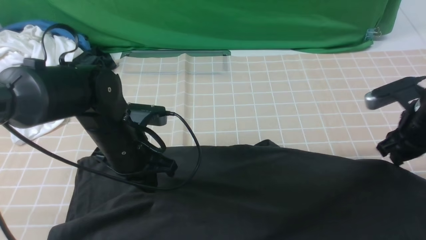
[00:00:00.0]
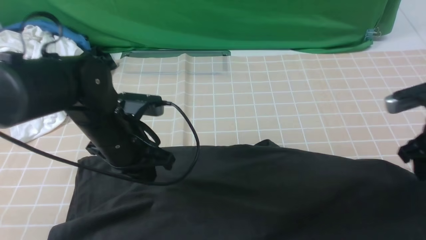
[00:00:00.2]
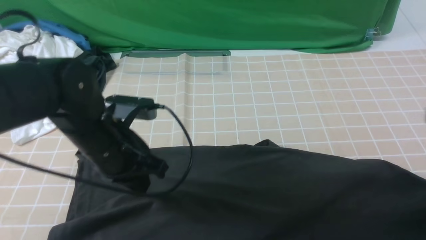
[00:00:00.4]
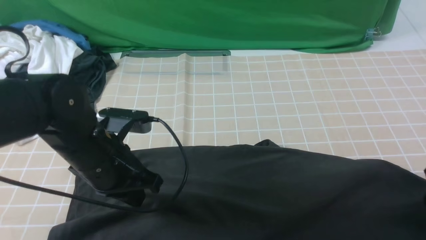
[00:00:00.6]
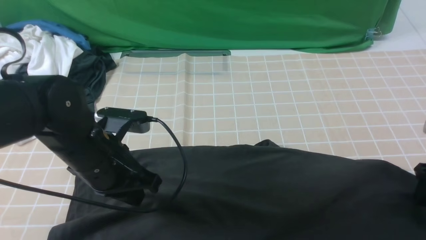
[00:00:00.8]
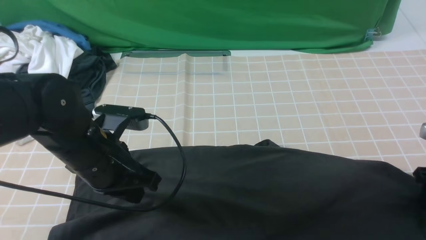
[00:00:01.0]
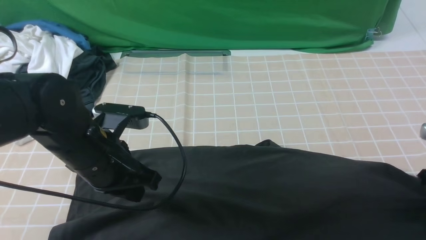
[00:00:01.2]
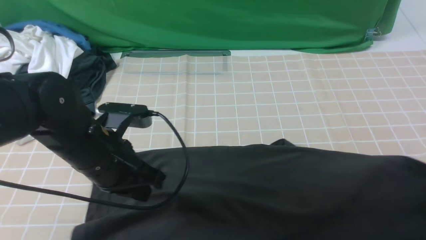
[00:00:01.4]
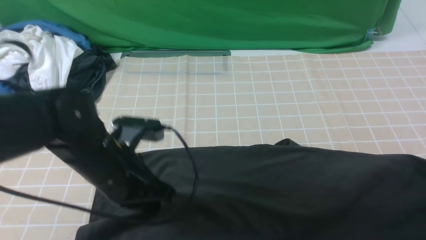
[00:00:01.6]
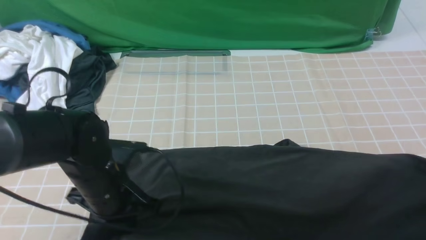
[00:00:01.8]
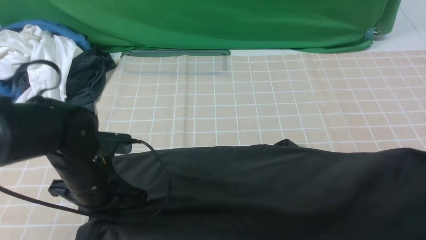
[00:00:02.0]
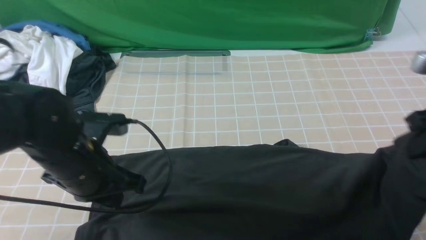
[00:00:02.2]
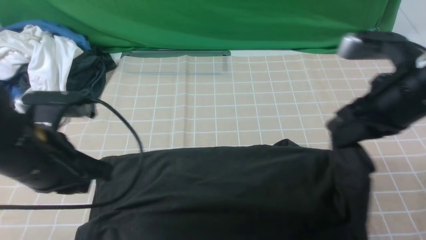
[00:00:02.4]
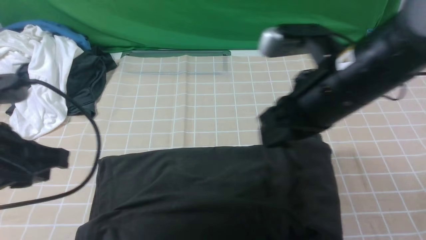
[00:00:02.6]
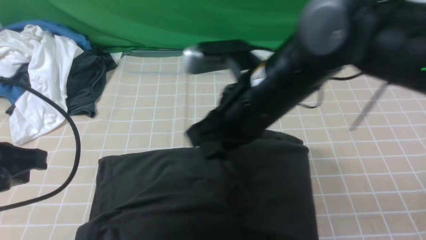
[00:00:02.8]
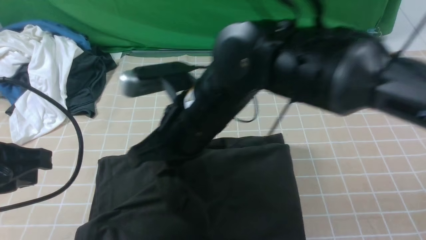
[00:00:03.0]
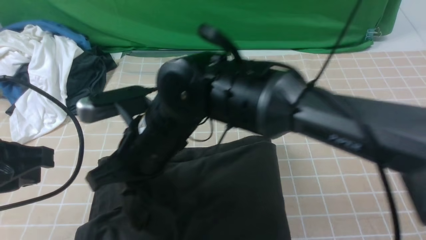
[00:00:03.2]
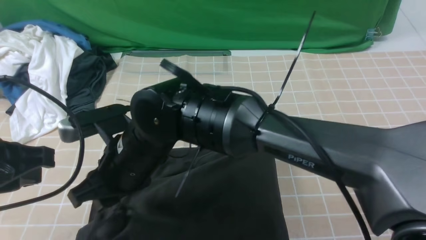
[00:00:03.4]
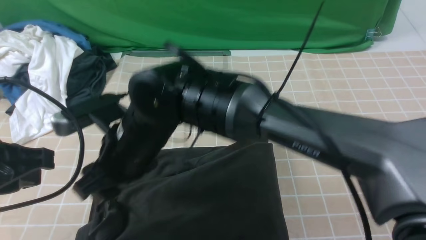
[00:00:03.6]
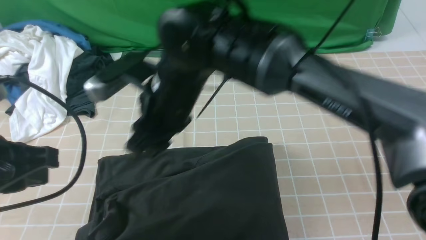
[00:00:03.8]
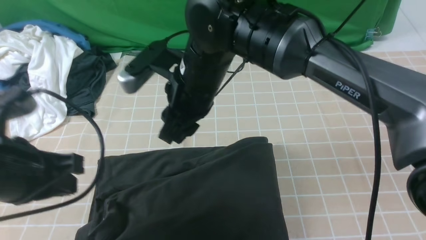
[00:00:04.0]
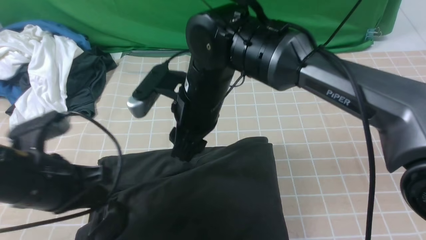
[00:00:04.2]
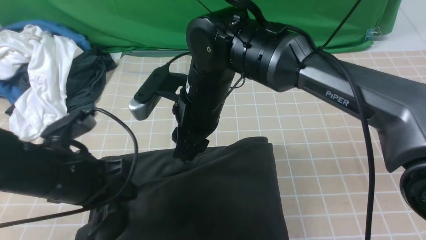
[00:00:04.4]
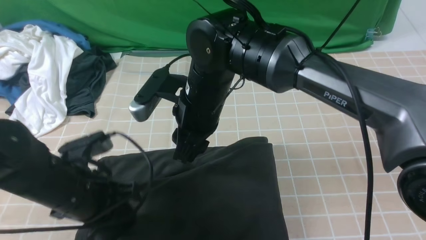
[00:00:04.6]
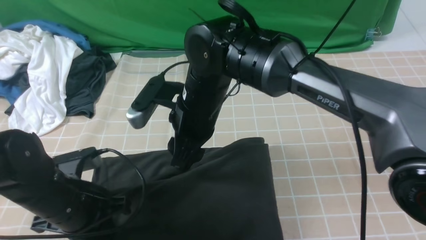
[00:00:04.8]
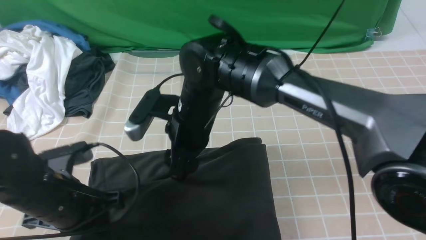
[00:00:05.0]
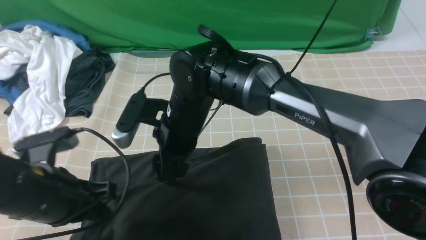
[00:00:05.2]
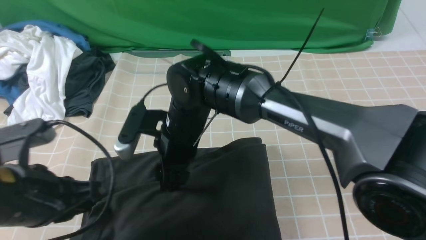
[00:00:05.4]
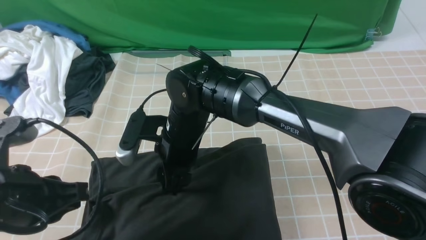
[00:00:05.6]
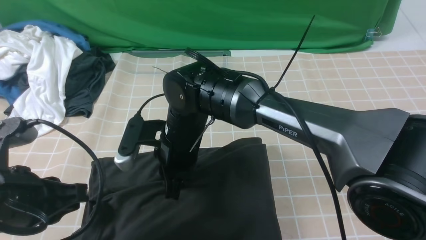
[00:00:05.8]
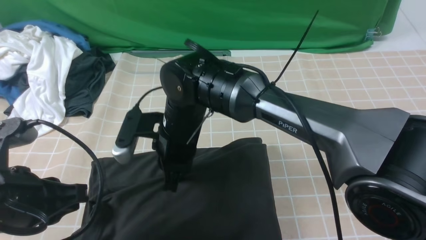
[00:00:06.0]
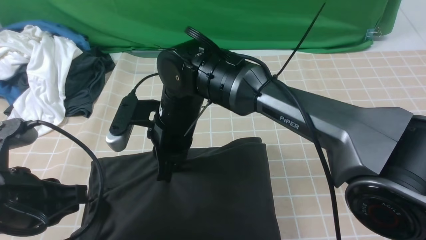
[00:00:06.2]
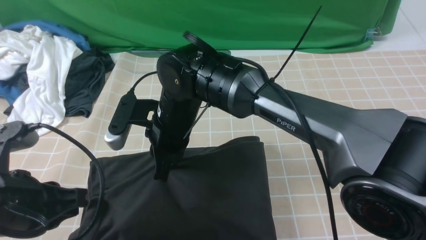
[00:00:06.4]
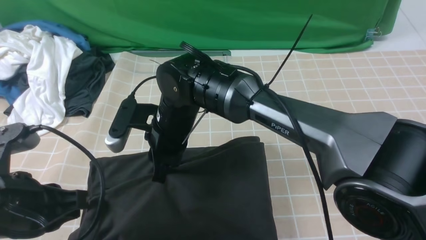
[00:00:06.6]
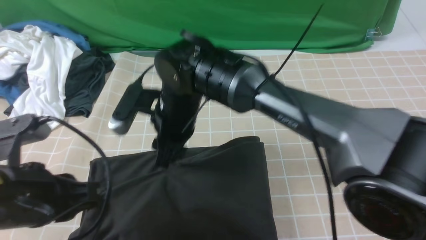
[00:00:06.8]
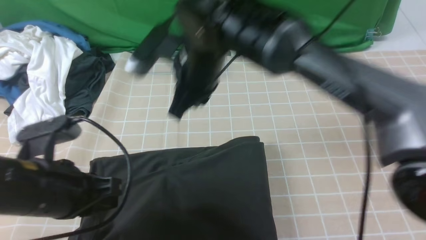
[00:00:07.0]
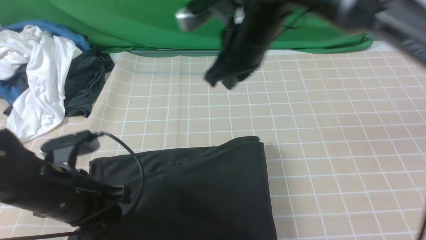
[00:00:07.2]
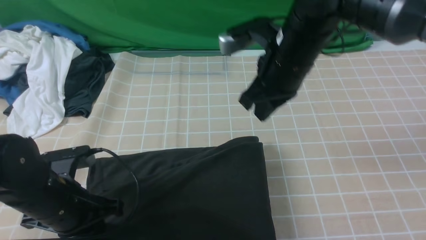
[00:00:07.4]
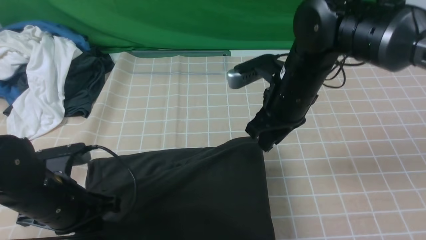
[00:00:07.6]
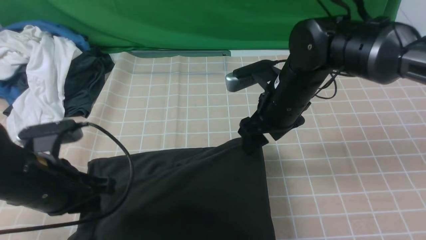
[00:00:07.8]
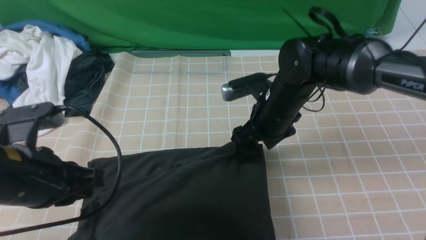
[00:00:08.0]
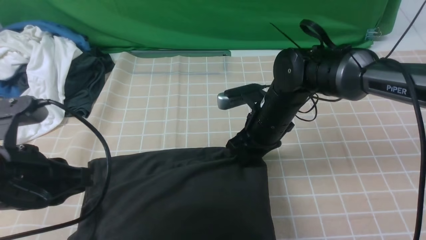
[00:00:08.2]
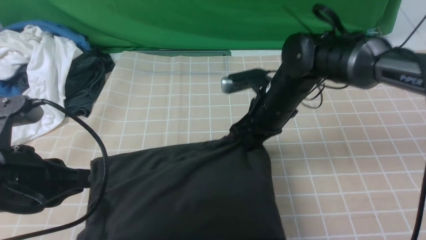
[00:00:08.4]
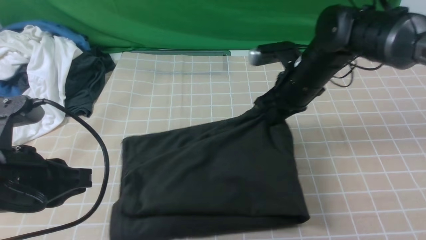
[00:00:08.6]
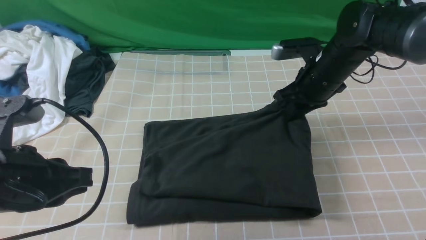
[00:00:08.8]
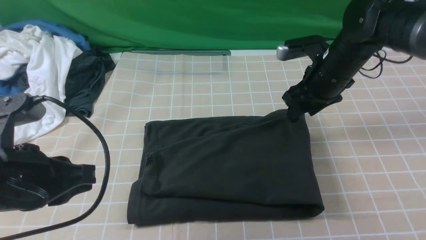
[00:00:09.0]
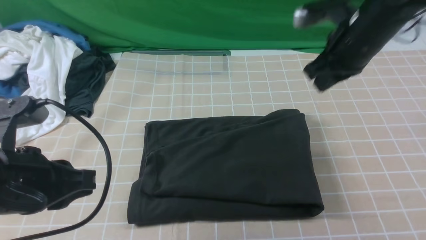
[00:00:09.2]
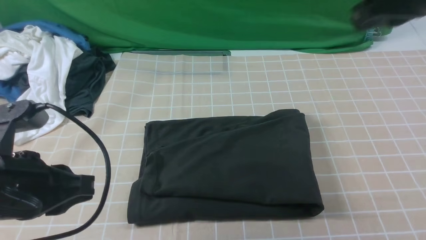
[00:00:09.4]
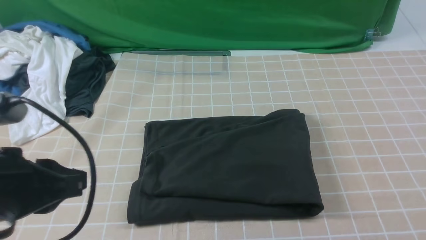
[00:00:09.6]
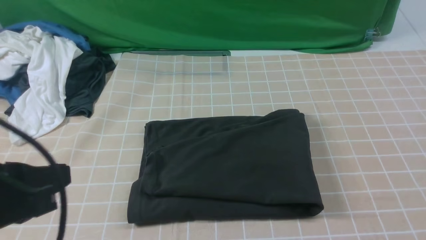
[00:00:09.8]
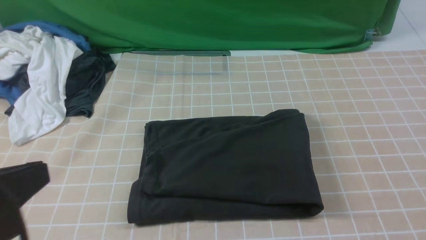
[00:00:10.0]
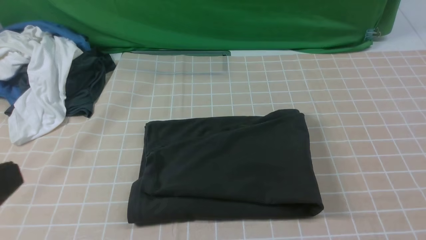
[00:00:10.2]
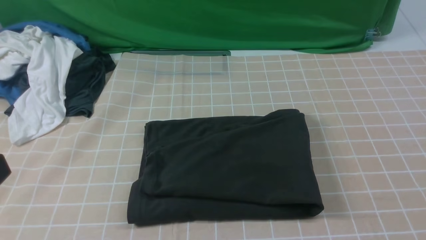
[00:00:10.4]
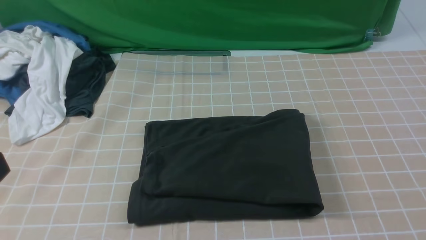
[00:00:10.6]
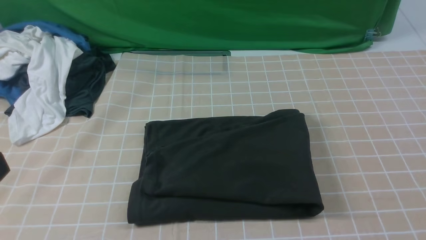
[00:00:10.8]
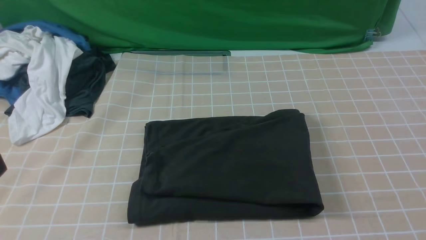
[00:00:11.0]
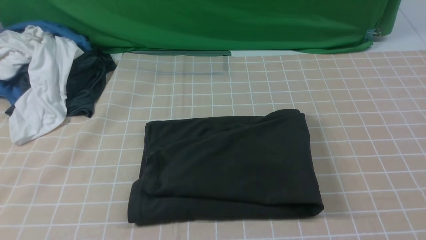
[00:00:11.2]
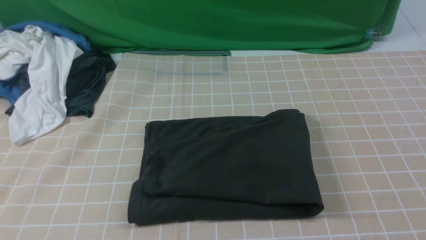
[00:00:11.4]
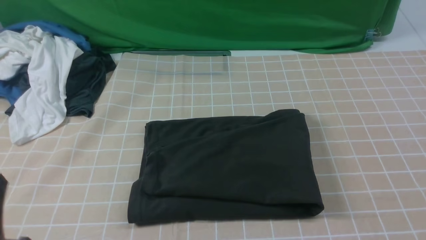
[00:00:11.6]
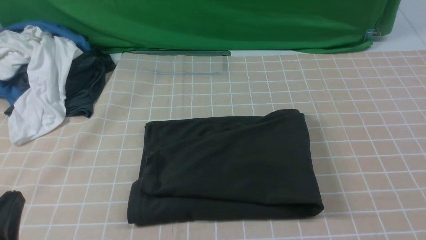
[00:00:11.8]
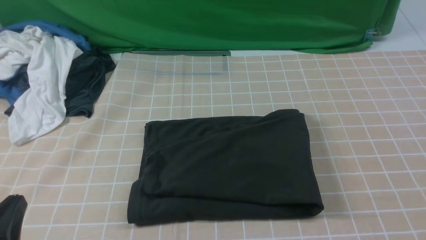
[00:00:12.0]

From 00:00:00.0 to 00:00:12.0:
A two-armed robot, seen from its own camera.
Step, from 00:00:01.4 to 00:00:03.4: use the right arm to drag the right edge of the fabric to the left and folds it over the left edge.
From 00:00:00.0 to 00:00:01.6: The right gripper is displaced to the right and backward by some 10 cm, and closes. The left gripper heads backward, covering approximately 5 cm.
From 00:00:01.6 to 00:00:03.0: The right gripper goes roughly 40 cm to the left, while the left gripper travels upward, to the left and backward by approximately 15 cm.
From 00:00:03.0 to 00:00:04.4: The right gripper goes approximately 5 cm forward, goes to the left and returns, some 5 cm each way, and opens its fingers; the left gripper goes some 10 cm downward.
From 00:00:04.4 to 00:00:06.0: The left gripper moves backward and upward, about 10 cm, while the right gripper changes place by some 5 cm, and closes its fingers.
From 00:00:06.0 to 00:00:07.6: The left gripper moves downward and forward, roughly 10 cm, while the right gripper moves to the right, some 15 cm, and opens its fingers.
From 00:00:07.6 to 00:00:09.0: The right gripper is displaced to the right by roughly 10 cm, and opens, then closes once more. Meanwhile the left gripper moves upward, roughly 10 cm.
From 00:00:09.0 to 00:00:10.4: The left gripper moves backward and upward, some 15 cm. Meanwhile the right gripper shifts roughly 35 cm backward.
From 00:00:10.4 to 00:00:12.0: The left gripper goes some 15 cm downward.

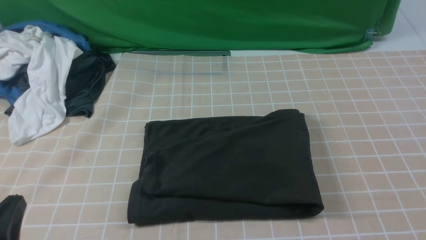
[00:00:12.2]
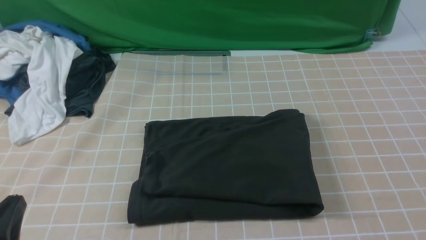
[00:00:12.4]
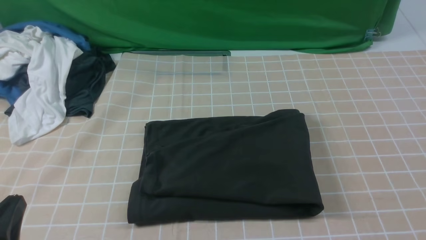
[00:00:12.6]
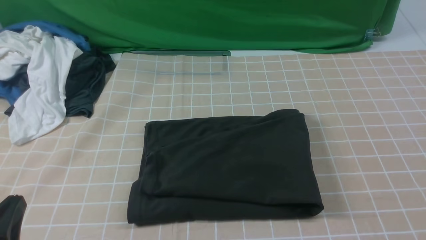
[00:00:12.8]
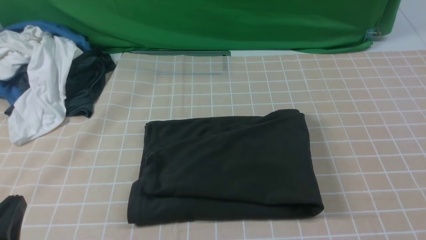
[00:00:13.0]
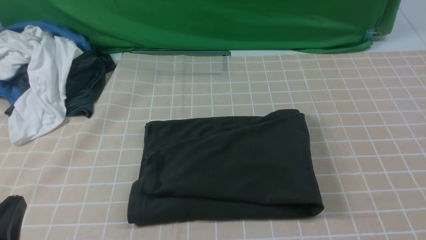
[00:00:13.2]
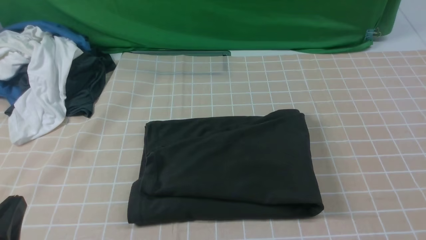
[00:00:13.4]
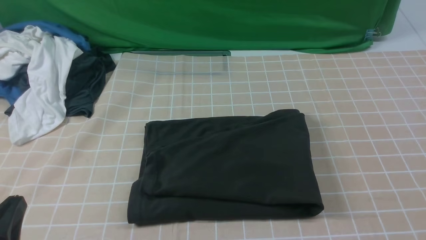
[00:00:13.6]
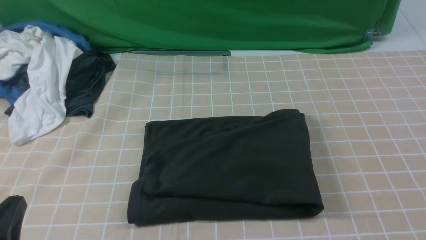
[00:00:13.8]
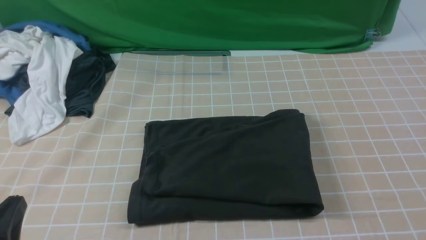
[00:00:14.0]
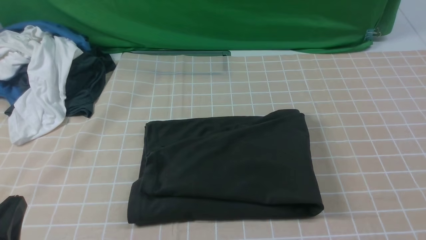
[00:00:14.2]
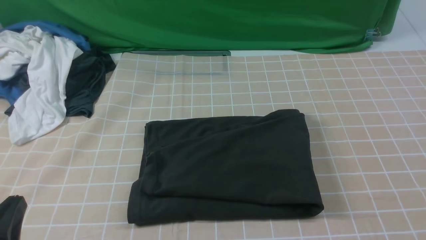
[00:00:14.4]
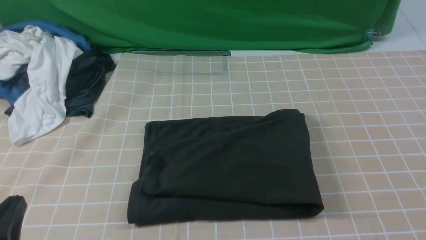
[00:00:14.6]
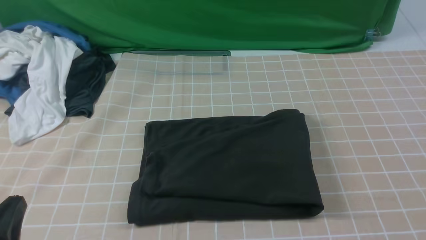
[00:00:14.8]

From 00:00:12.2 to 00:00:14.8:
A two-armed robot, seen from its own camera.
From 00:00:13.4 to 00:00:14.8: Both grippers stay about where they are.
